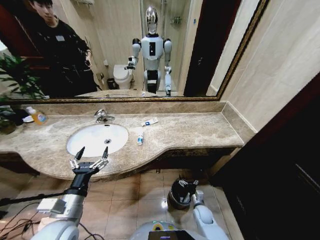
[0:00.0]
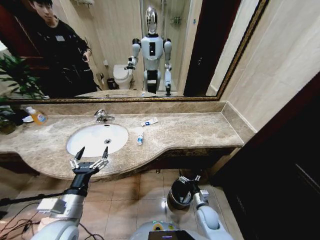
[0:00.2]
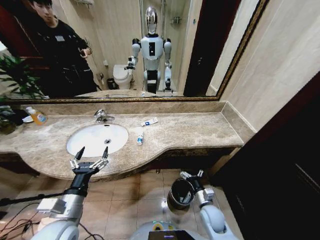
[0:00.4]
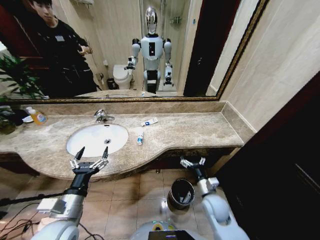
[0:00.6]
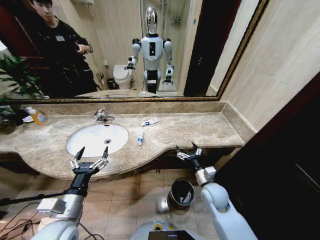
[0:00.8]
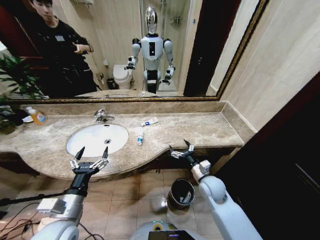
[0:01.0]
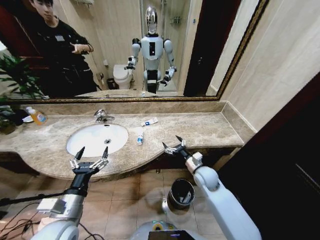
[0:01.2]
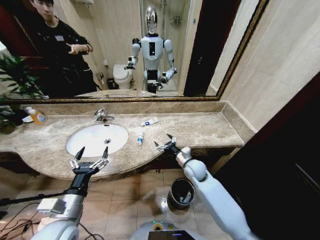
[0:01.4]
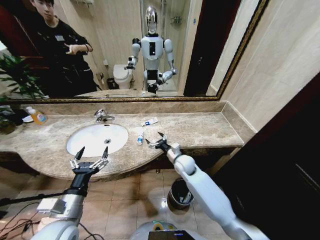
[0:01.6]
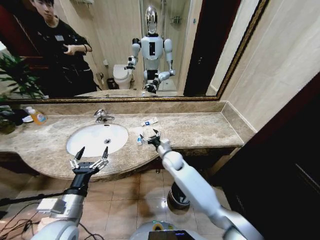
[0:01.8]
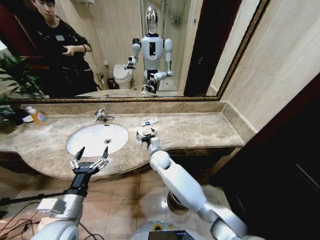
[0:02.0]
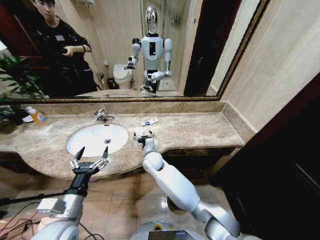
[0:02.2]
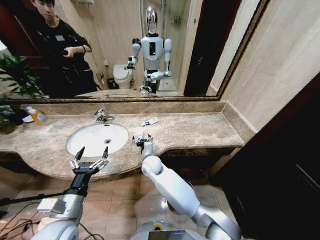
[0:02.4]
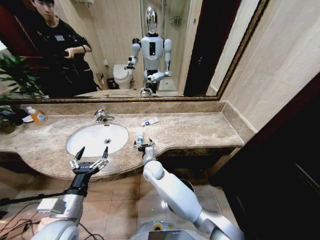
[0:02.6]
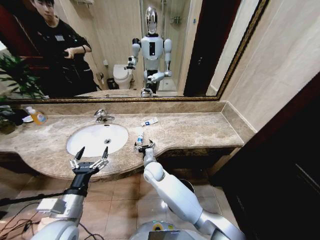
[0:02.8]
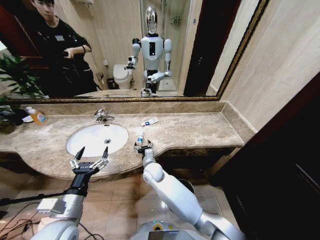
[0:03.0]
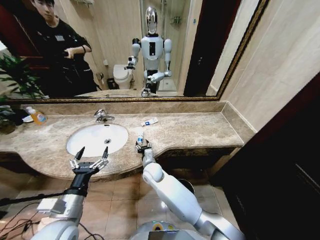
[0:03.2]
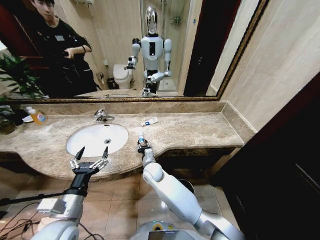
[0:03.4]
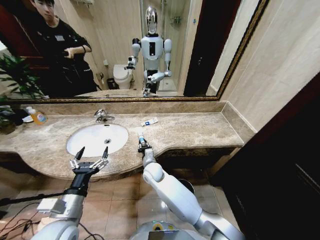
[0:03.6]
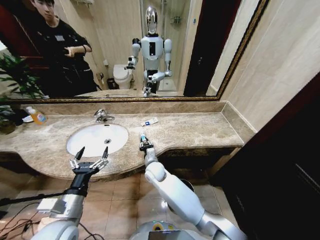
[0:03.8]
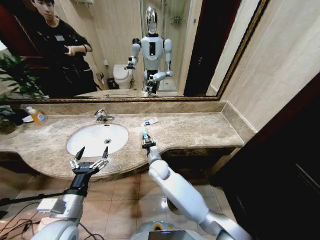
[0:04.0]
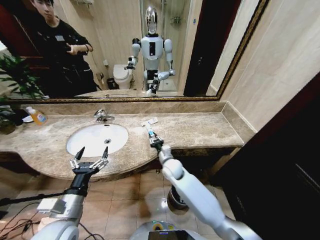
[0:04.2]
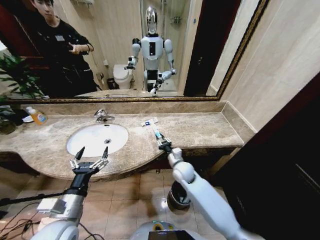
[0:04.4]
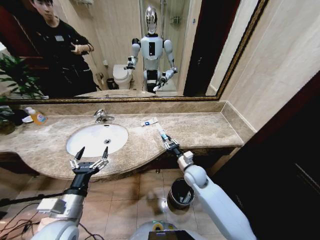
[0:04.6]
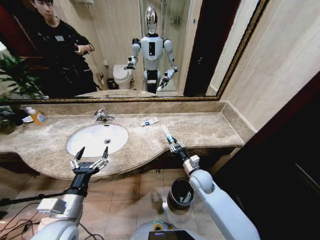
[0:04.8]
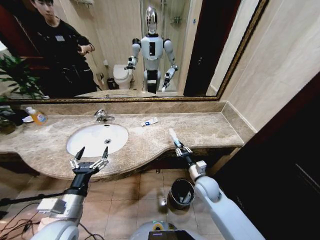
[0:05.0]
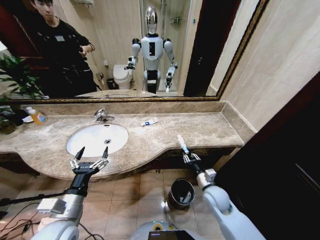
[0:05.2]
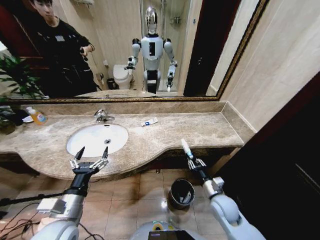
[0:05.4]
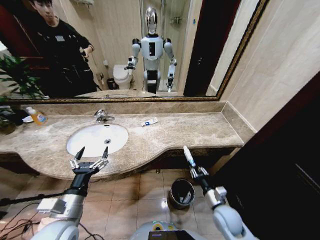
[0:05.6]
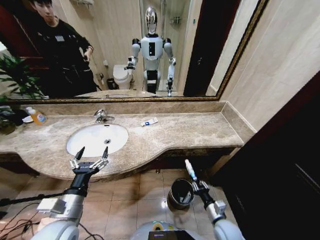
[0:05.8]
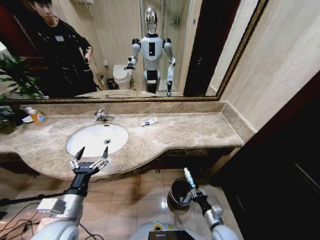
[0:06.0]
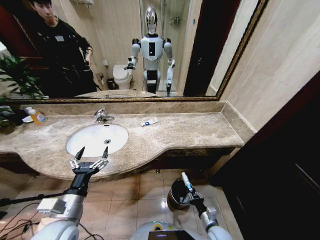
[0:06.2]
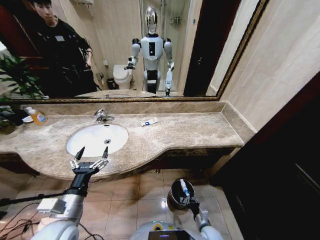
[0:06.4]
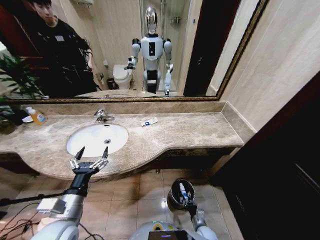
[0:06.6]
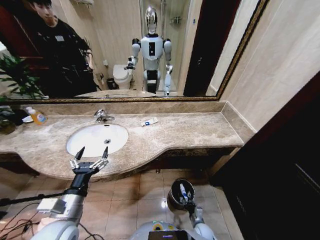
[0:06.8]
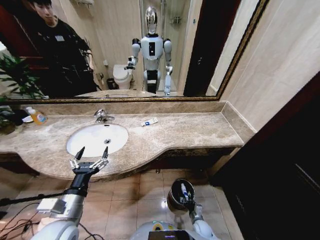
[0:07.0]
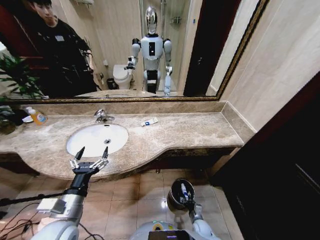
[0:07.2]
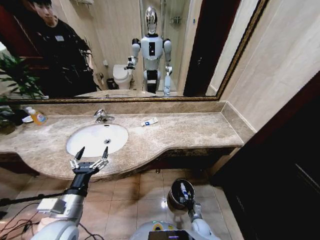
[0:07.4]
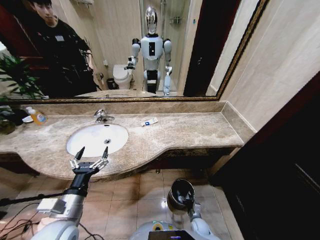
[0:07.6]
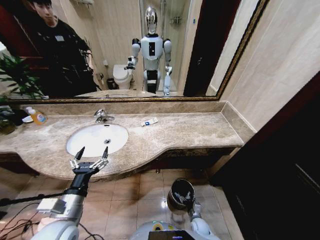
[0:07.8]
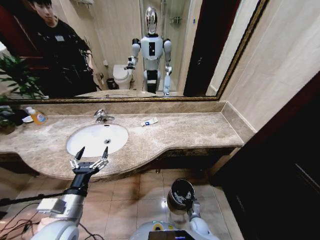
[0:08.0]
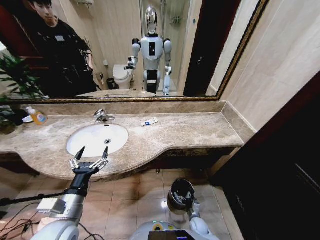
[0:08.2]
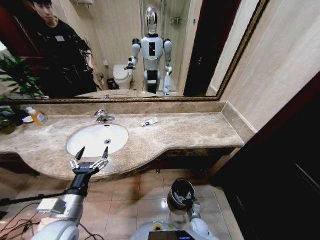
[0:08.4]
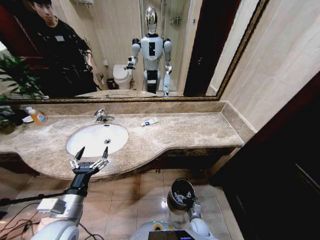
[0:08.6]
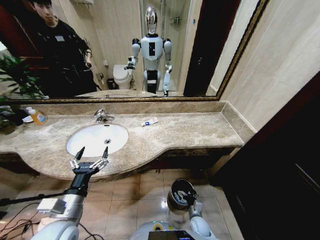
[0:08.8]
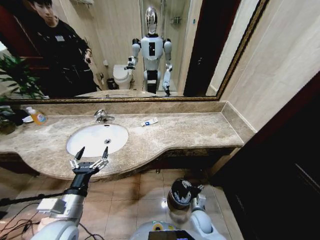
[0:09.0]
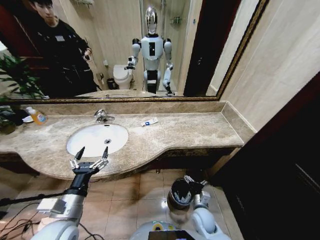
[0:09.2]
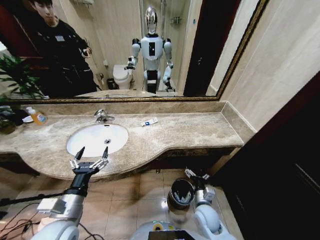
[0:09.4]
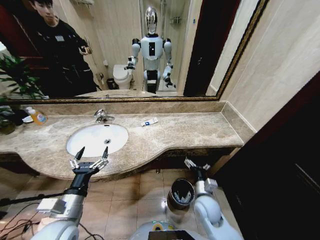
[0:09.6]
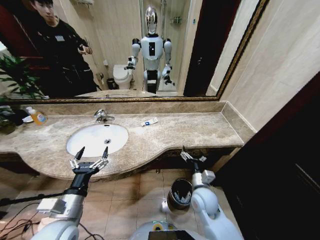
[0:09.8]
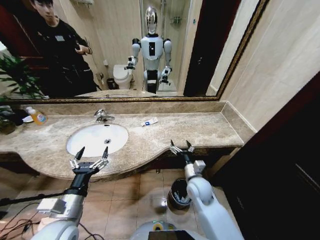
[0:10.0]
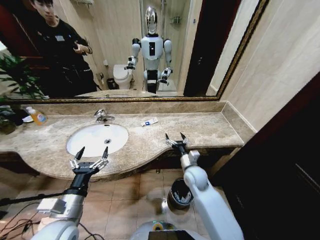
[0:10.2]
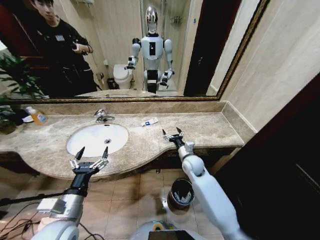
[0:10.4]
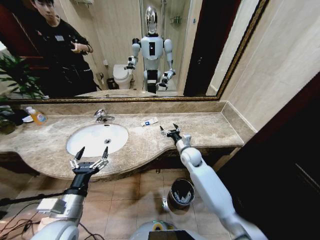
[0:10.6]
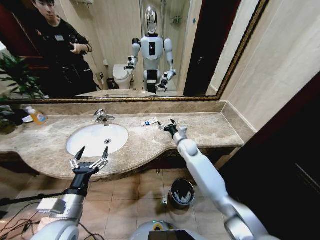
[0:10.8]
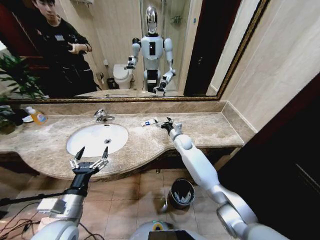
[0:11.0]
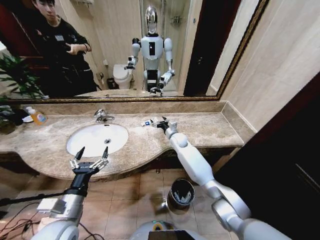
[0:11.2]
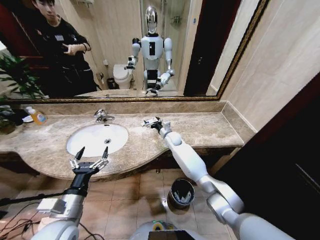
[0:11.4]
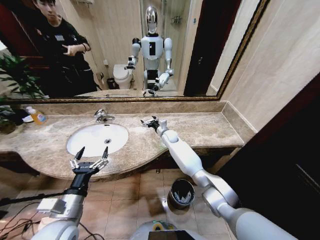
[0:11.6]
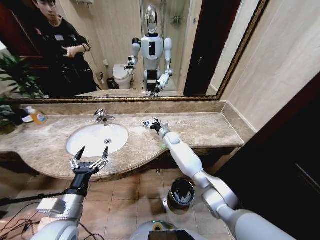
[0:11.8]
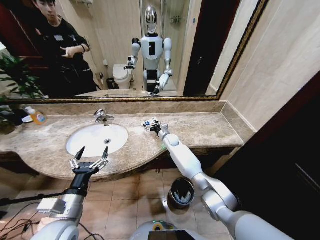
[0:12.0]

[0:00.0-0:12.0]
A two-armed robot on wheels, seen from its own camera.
Task of the whole recording: Pick up the trash from the sink and place it in the trash bin.
0:00.0 to 0:01.6: The right gripper shifts some 30 cm upward, forward and to the left.
0:01.6 to 0:03.0: The right gripper moves to the left, approximately 15 cm.
0:03.0 to 0:04.4: The right gripper travels to the right by some 15 cm, and closes up.
0:04.4 to 0:06.0: The right gripper goes approximately 30 cm backward, downward and to the right.
0:06.0 to 0:07.6: The right gripper heads downward, covering roughly 15 cm.
0:07.6 to 0:09.0: The right gripper moves upward, about 10 cm, and opens up.
0:09.0 to 0:10.4: The right gripper heads upward and forward, covering approximately 30 cm.
0:10.4 to 0:12.0: The right gripper goes approximately 20 cm forward and to the left.

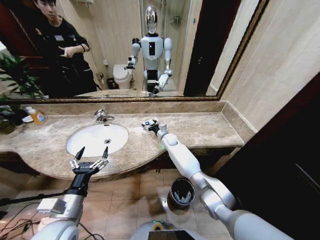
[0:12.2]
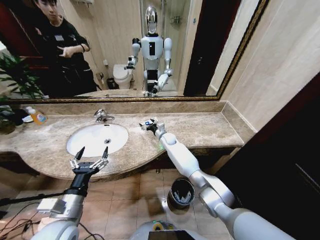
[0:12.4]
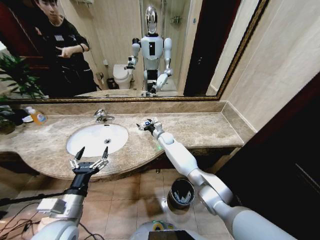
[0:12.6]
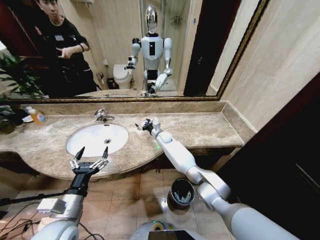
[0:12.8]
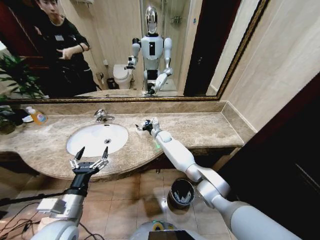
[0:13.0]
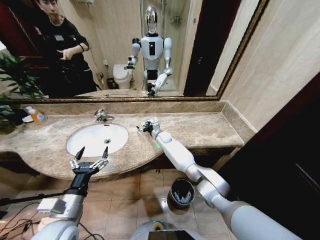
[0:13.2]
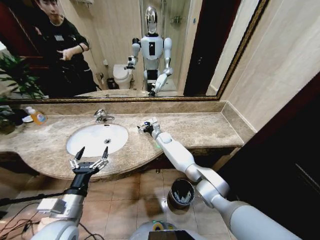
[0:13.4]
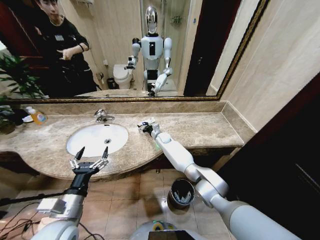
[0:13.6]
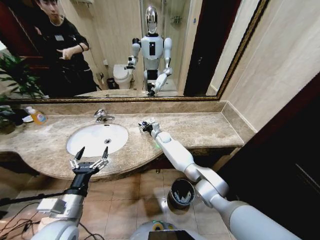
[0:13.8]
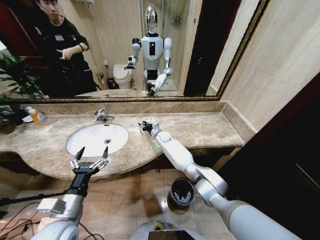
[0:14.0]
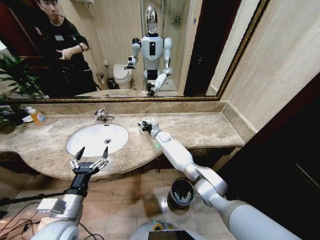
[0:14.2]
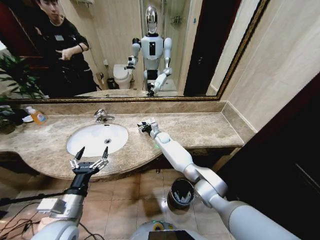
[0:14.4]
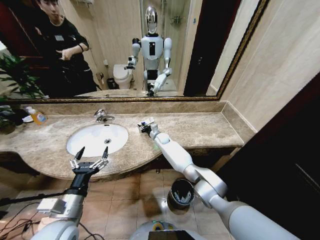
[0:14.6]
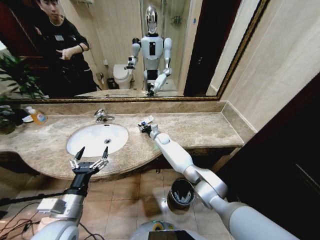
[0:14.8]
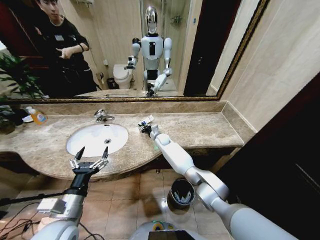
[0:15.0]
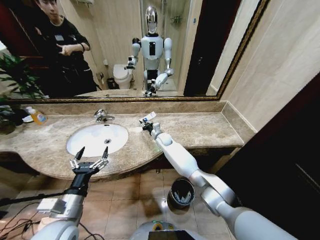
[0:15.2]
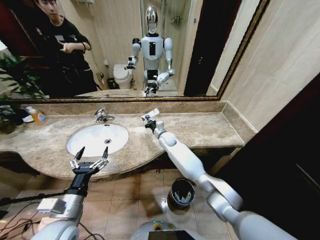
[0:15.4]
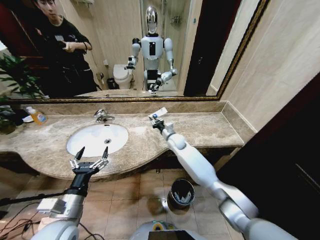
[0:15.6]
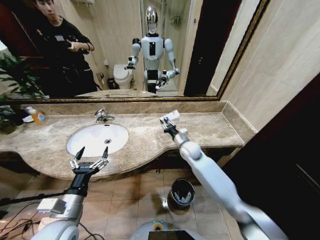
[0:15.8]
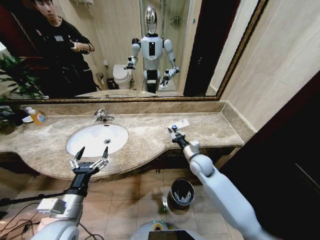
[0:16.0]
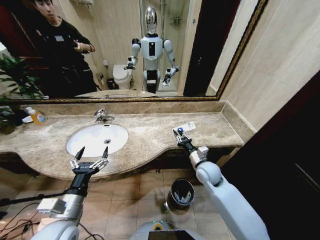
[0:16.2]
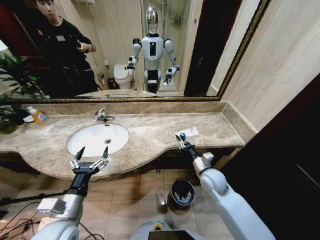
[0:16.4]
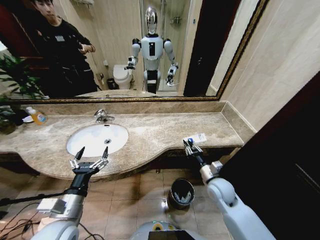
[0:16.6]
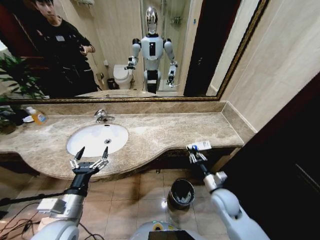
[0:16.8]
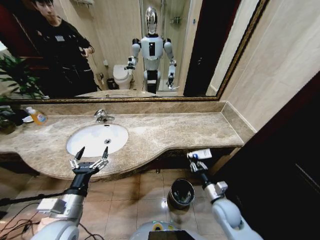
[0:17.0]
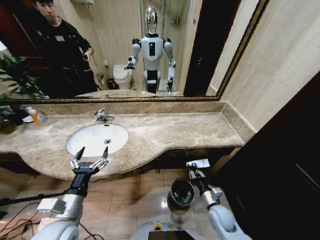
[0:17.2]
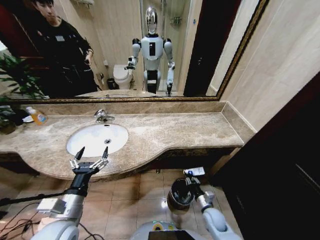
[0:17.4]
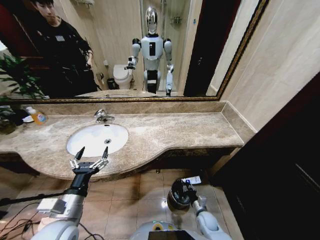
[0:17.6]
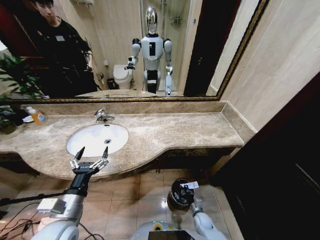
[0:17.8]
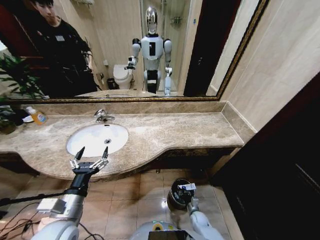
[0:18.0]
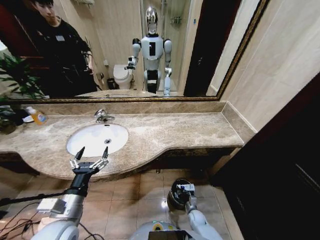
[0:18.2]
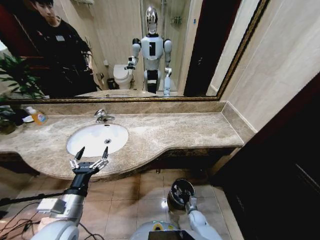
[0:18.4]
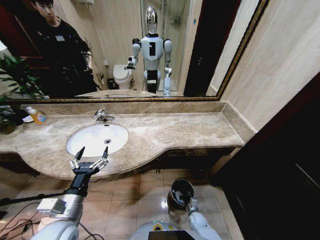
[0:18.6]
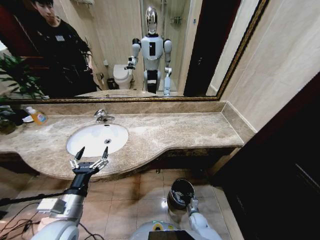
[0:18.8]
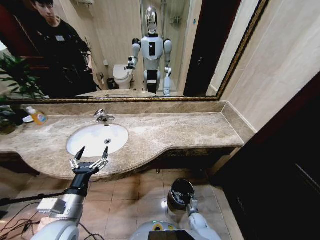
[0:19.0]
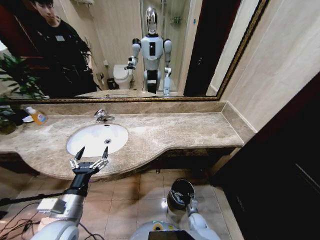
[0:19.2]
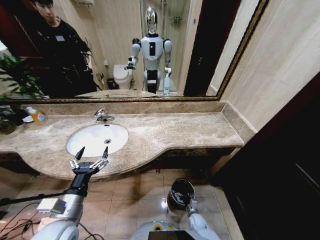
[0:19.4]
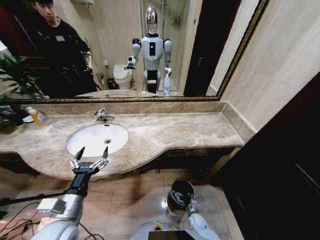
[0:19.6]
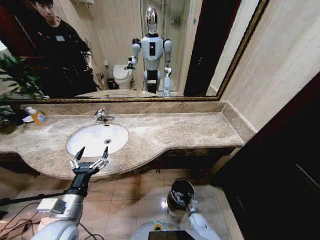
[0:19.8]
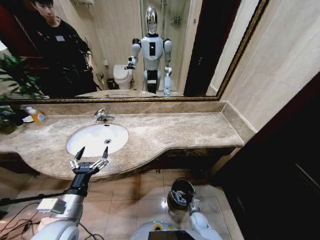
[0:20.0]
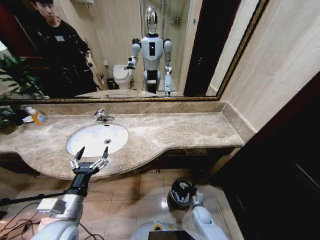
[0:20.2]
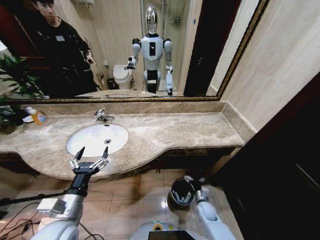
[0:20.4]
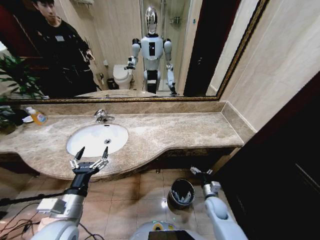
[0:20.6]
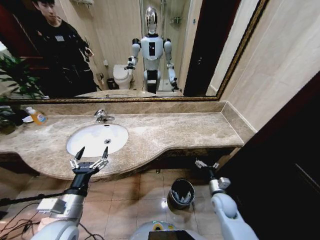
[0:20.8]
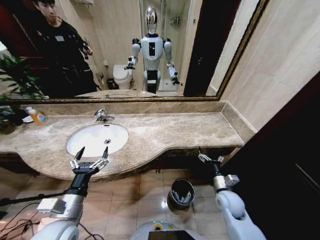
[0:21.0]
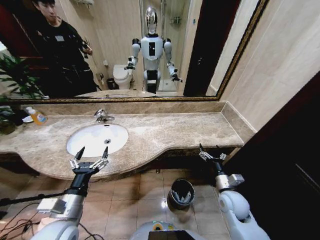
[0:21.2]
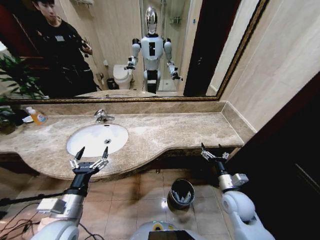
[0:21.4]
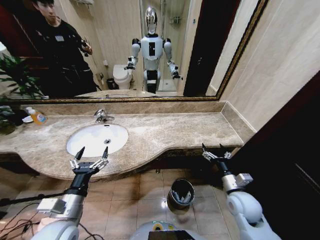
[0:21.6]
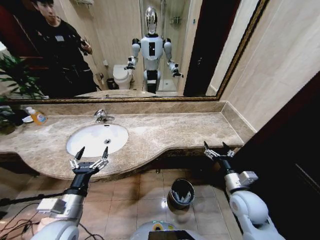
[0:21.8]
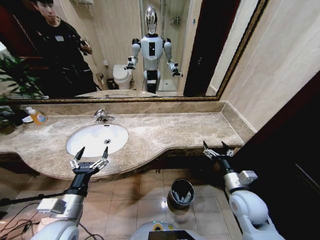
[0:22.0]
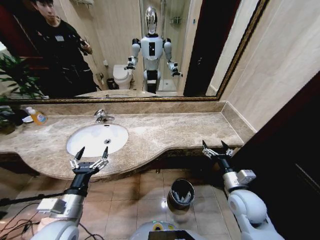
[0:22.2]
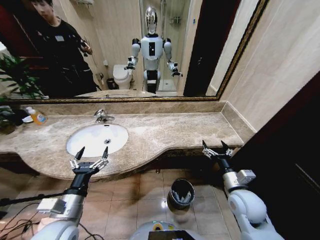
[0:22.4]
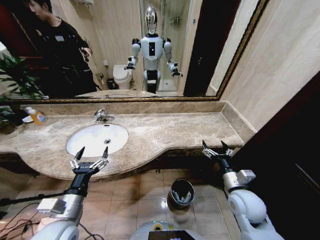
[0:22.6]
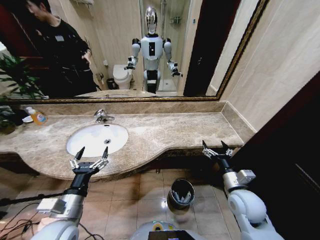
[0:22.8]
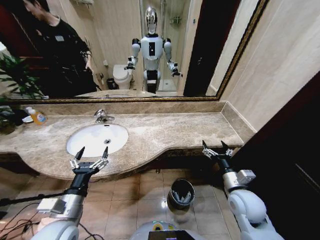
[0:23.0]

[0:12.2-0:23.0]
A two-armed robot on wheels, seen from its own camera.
Task of the whole recording: Pick up the trash from the sink and place it in the trash bin.
0:12.2 to 0:13.8: The right gripper closes its fingers.
0:13.8 to 0:15.2: The grippers move only a little.
0:15.2 to 0:16.8: The right gripper travels backward and to the right by roughly 40 cm.
0:16.8 to 0:18.4: The right gripper heads downward, covering roughly 30 cm.
0:18.4 to 0:20.0: The right gripper opens up.
0:20.0 to 0:21.4: The right gripper is displaced upward by roughly 30 cm.
0:21.4 to 0:23.0: The grippers stay close to where they were, moving slightly.
